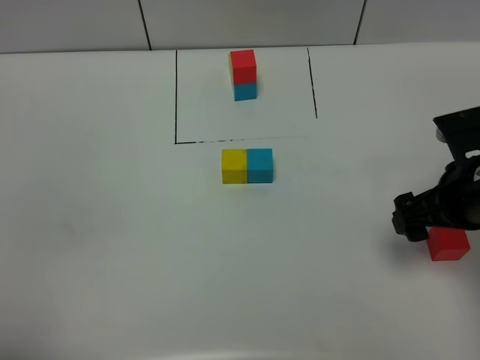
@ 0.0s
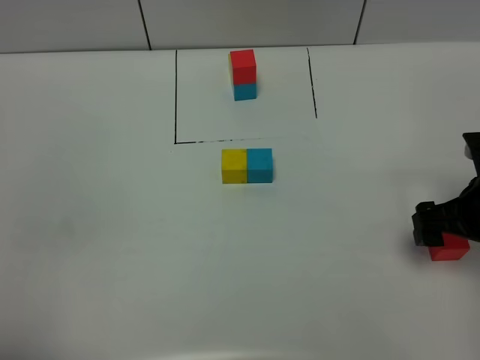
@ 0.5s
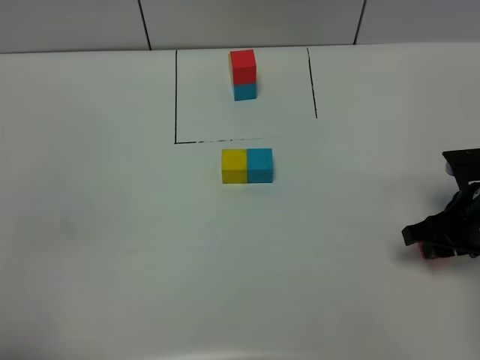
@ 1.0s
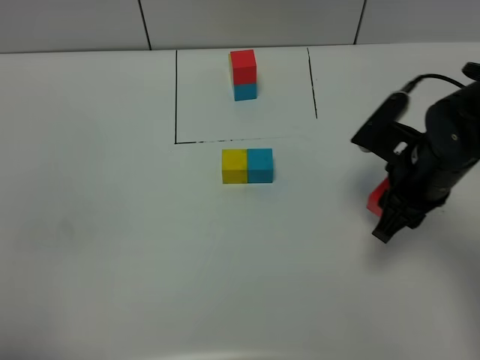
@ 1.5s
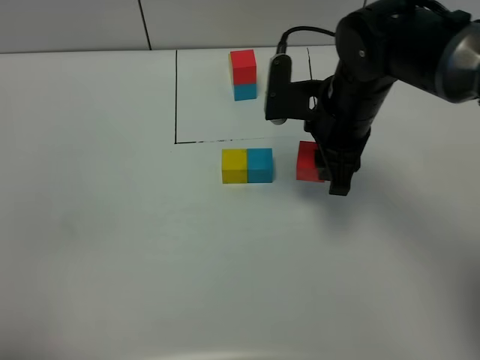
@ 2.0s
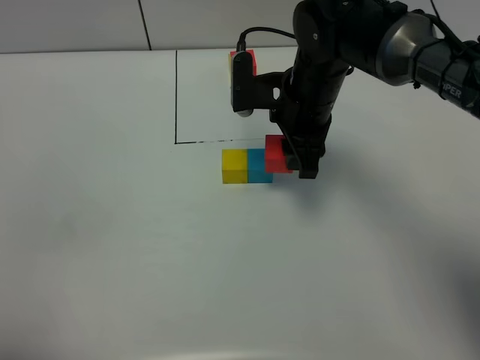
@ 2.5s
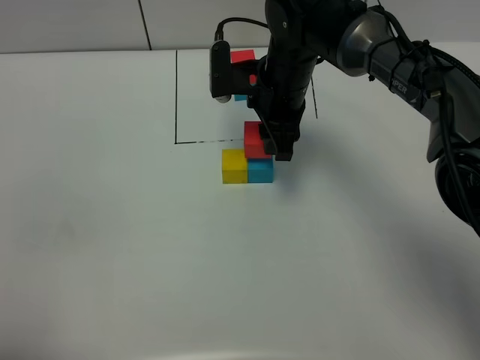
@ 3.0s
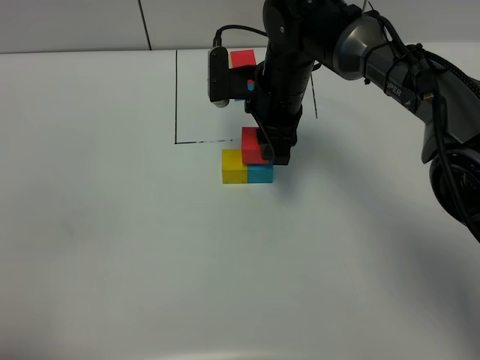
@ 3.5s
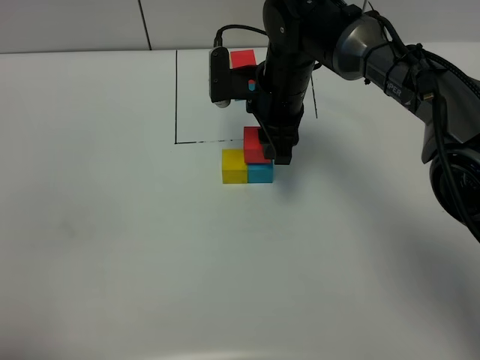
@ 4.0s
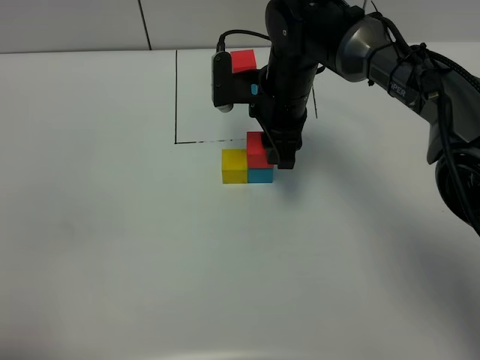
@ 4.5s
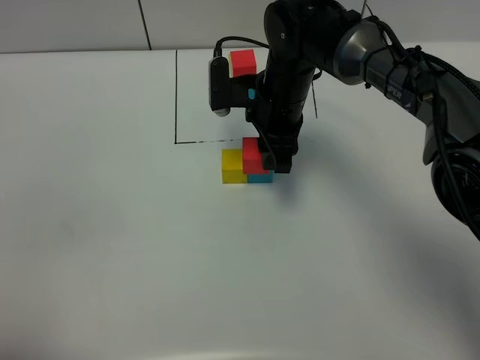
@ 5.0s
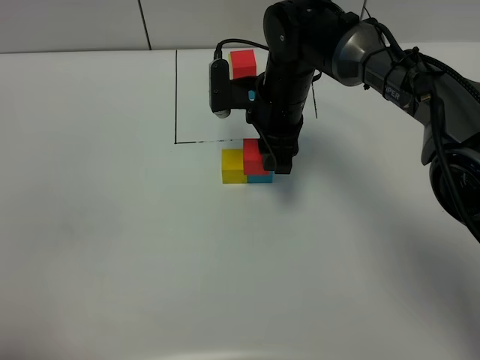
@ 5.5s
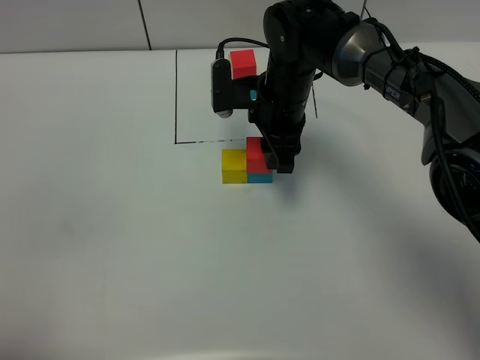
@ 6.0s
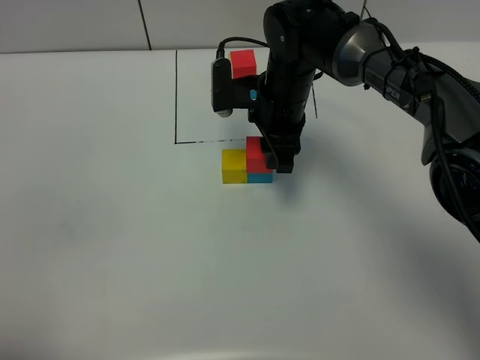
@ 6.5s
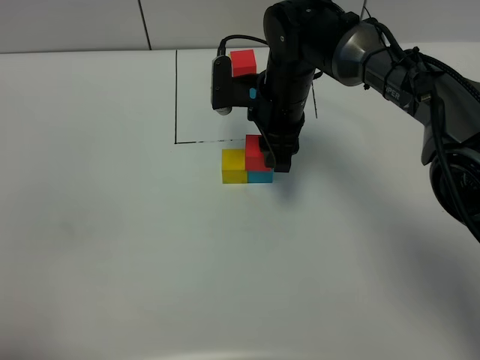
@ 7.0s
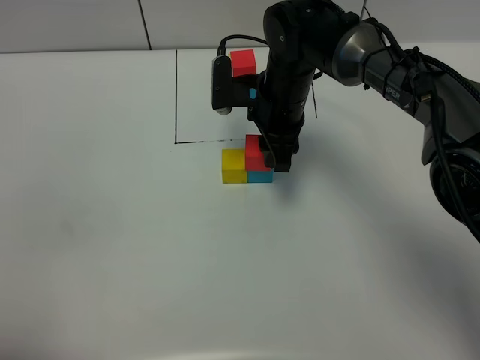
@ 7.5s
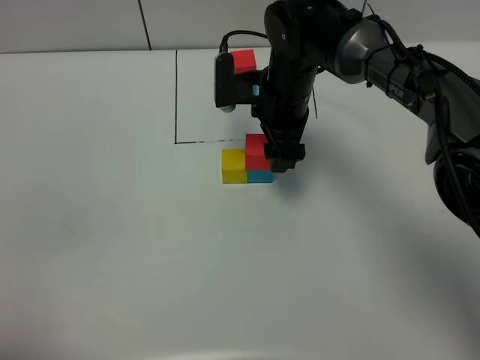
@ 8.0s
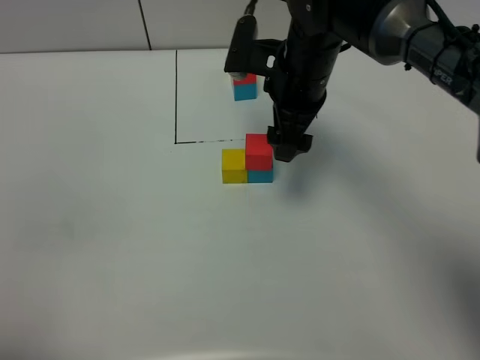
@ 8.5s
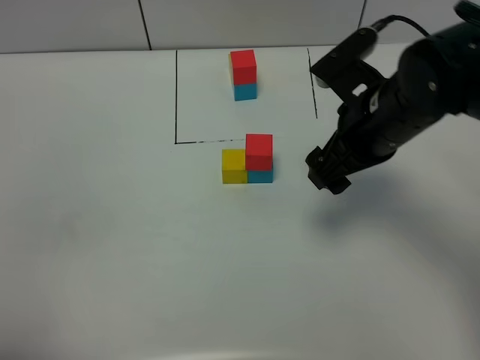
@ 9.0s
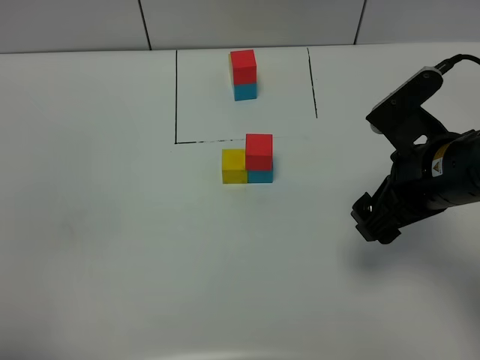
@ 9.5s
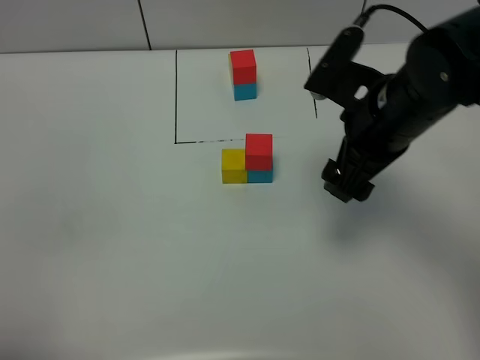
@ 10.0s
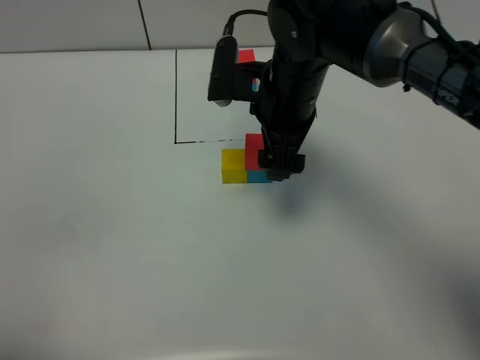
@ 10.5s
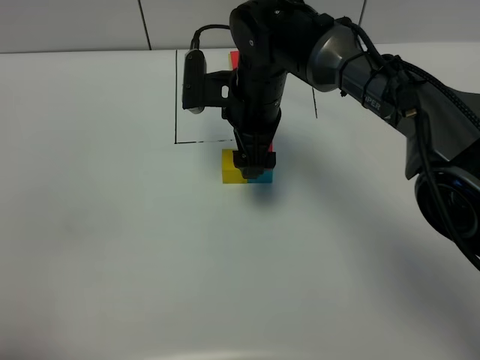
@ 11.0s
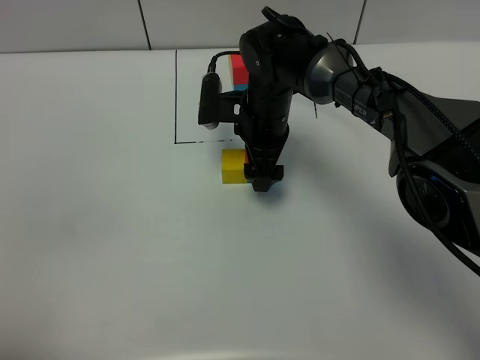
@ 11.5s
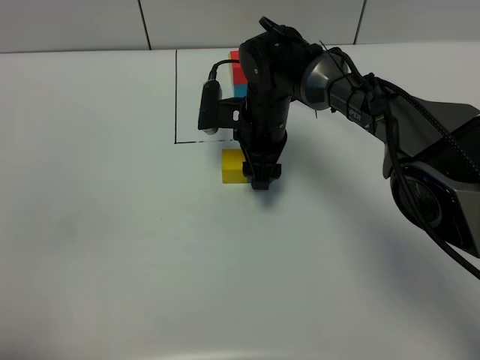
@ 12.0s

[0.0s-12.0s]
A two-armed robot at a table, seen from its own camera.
Task of the whole recording: According to the building block template in front, assemble the scattered blocks together.
Step, 0.0s to 7.5s: Put the red build block on the blue build block.
0.0s to 2.0s: The right gripper moves to the left and forward, approximately 15 cm, and closes.
2.0s to 4.0s: The right gripper heads forward and to the left, covering about 10 cm.
4.0s to 6.0s: Neither gripper changes place.
6.0s to 8.0s: The right gripper opens its fingers.
8.0s to 10.0s: The right gripper is displaced backward, upward and to the right by some 15 cm.
10.0s to 12.0s: The right gripper shifts roughly 20 cm downward, forward and to the left, and closes up.

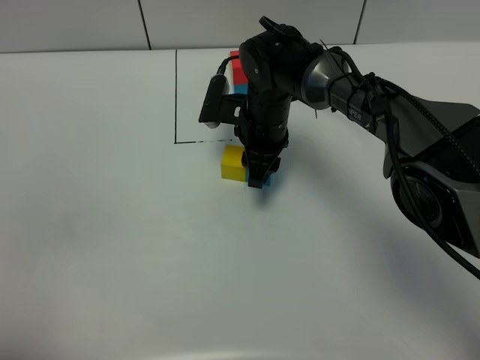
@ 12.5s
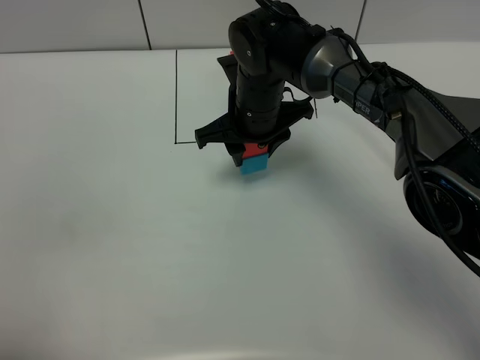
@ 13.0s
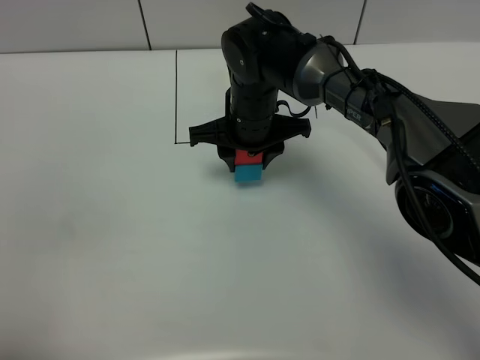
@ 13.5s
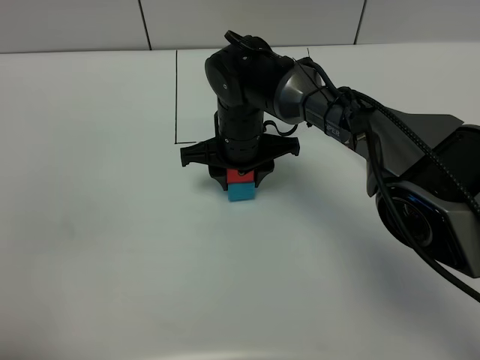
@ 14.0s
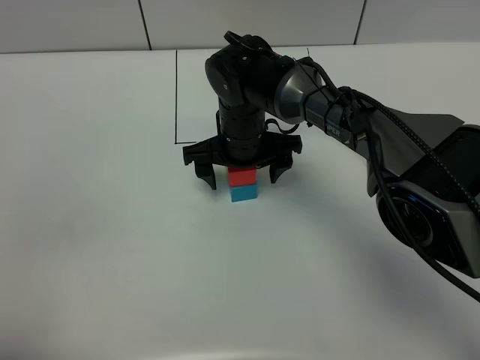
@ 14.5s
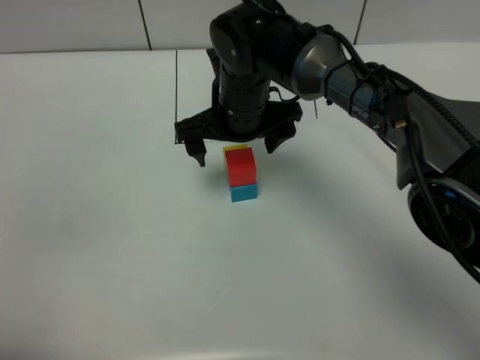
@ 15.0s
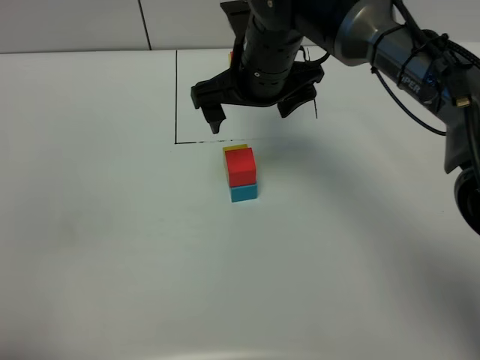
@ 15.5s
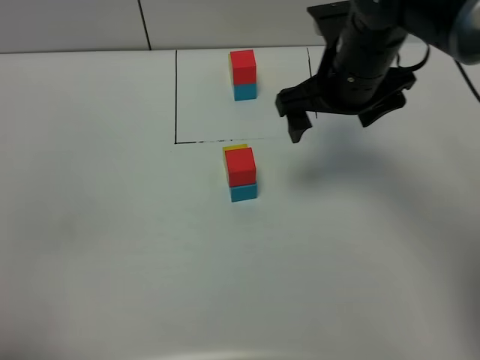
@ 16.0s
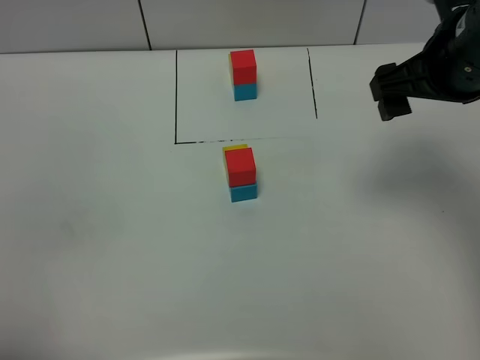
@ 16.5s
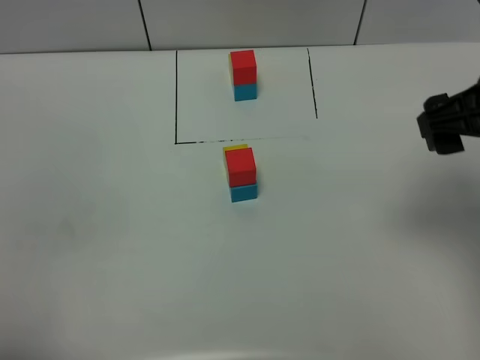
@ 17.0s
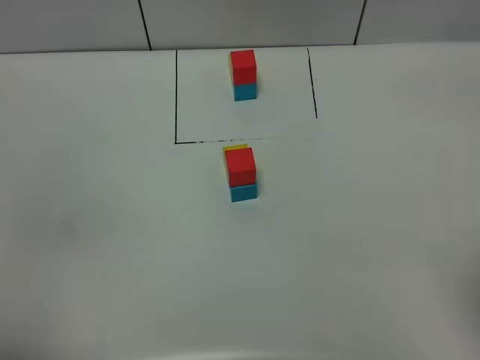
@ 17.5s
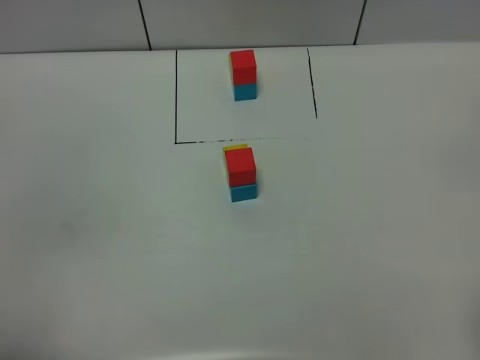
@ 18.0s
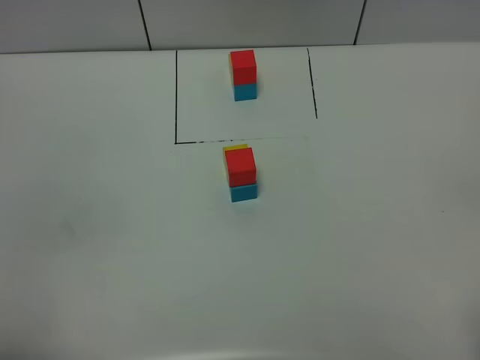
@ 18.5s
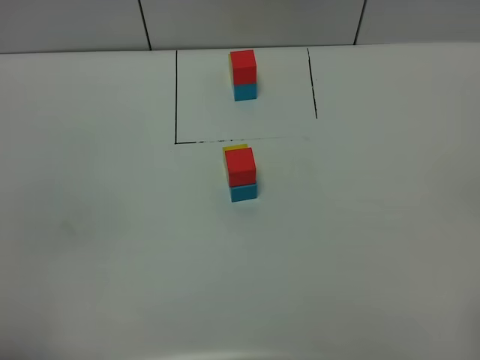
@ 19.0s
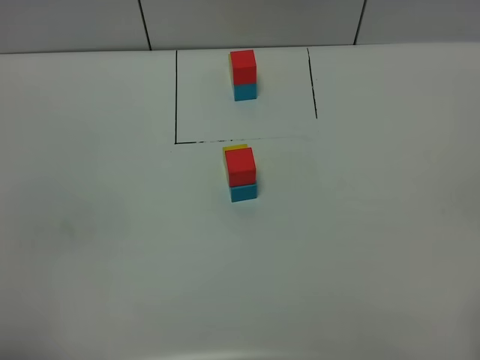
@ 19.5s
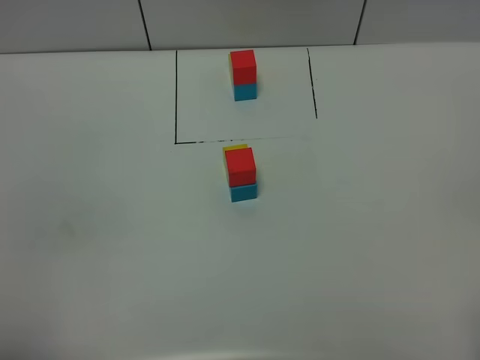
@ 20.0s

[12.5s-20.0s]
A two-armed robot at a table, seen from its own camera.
Task of the whole recording: According to the building block template in front, assemble the scattered blocks together.
12.5s to 14.5s: The right gripper opens its fingers.
14.5s to 16.5s: The right gripper goes some 30 cm to the right, upward and backward.
16.5s to 18.0s: The right gripper goes about 30 cm backward.

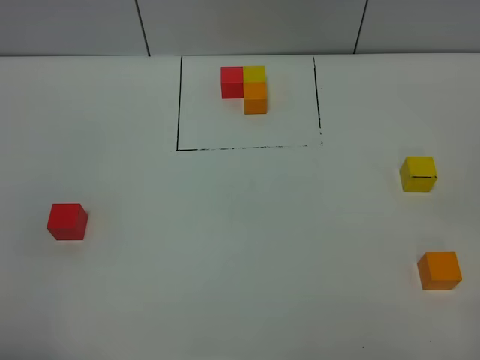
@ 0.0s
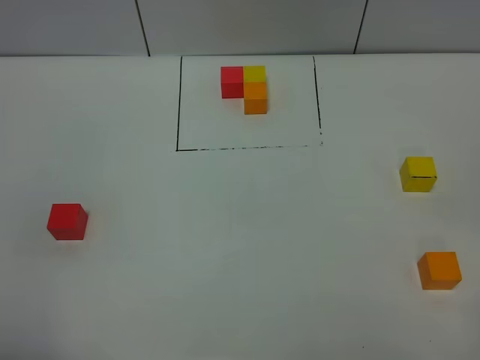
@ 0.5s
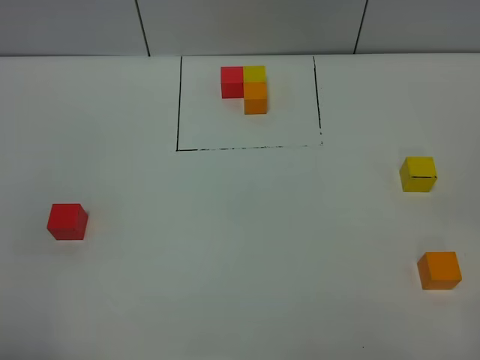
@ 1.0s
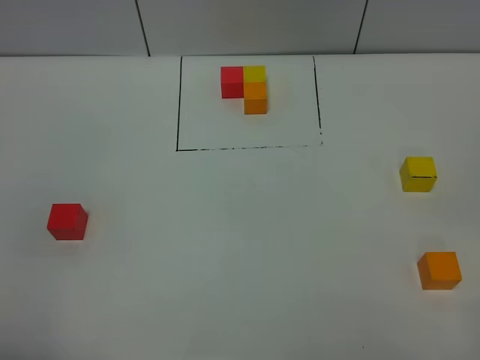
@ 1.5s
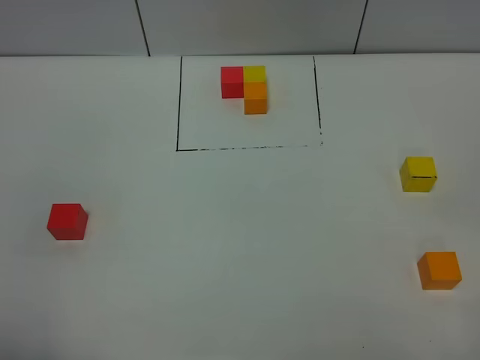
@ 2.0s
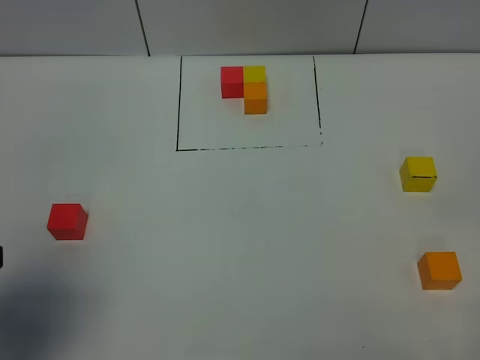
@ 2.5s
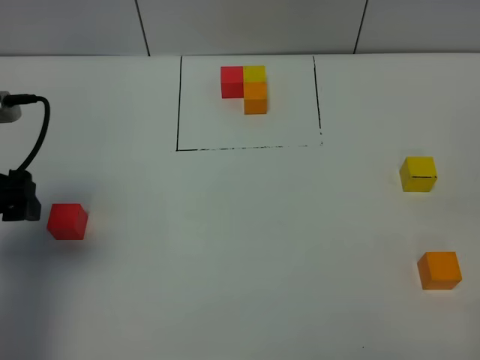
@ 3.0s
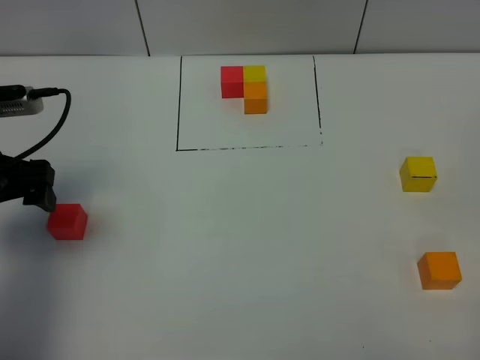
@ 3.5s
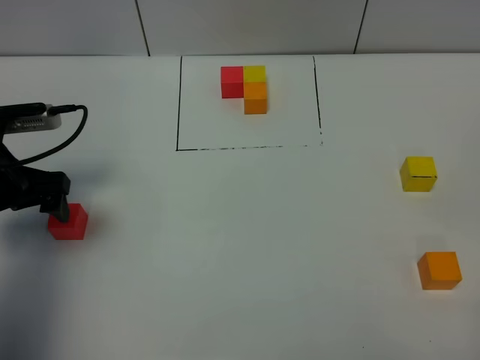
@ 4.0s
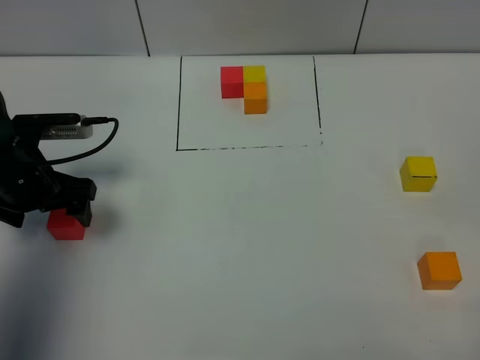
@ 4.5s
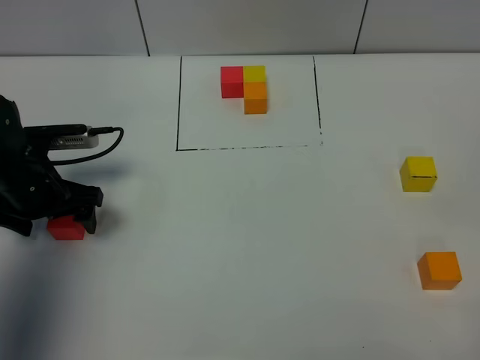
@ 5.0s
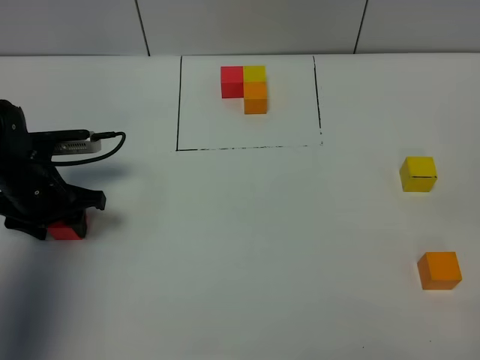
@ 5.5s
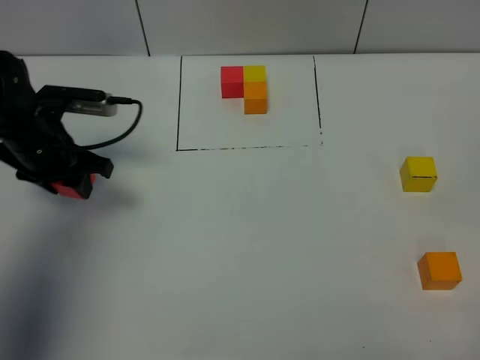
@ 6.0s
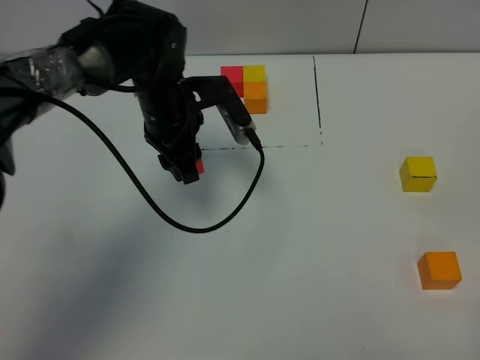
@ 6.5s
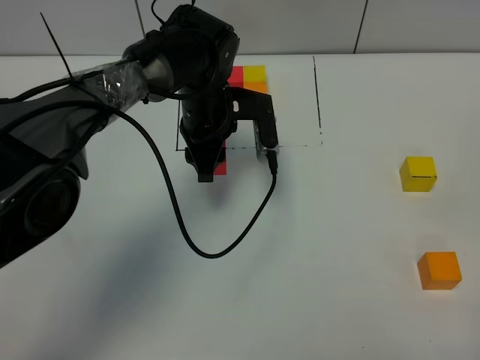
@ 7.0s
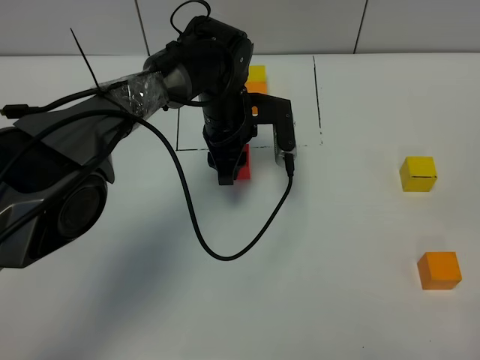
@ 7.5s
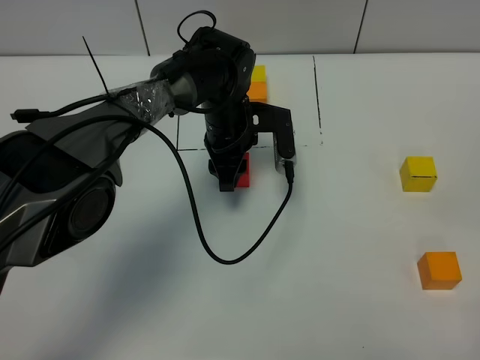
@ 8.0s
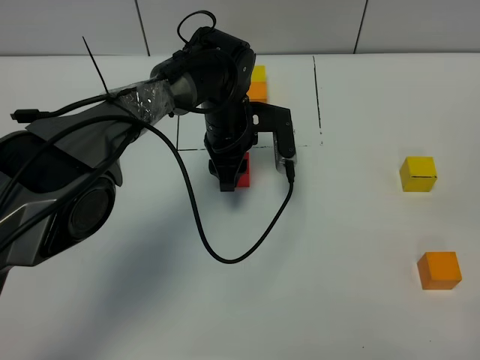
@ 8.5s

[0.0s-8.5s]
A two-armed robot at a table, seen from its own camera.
Task of the whole recording: According to the building block template in front, assemble the scattered blocks together.
0.0s to 2.0s: Both grippers stay put.
2.0s to 4.0s: The left gripper is displaced forward by approximately 30 cm.
4.0s to 6.5s: The left gripper travels to the right and forward by some 25 cm, and closes.
6.5s to 8.5s: The left gripper shifts approximately 10 cm to the right and downward.
